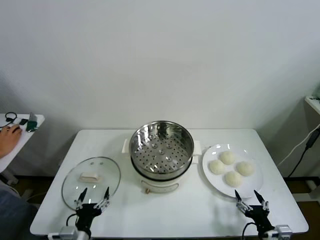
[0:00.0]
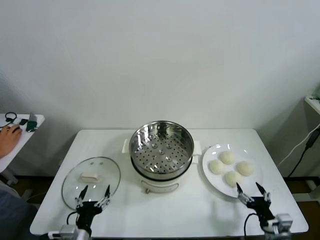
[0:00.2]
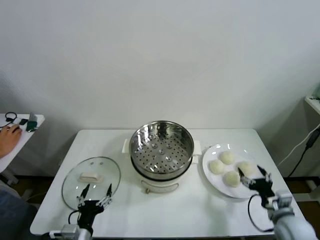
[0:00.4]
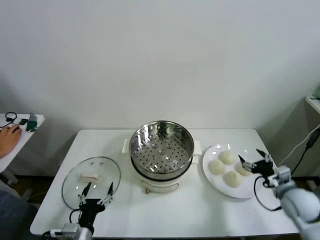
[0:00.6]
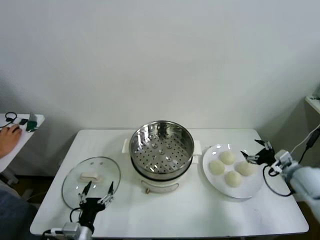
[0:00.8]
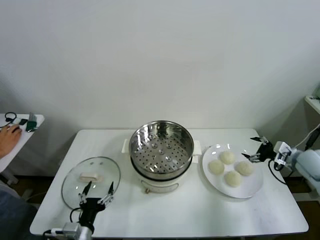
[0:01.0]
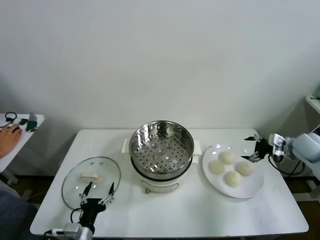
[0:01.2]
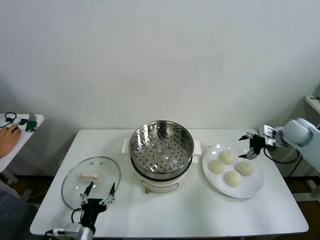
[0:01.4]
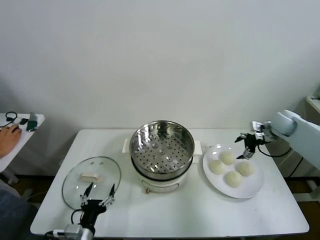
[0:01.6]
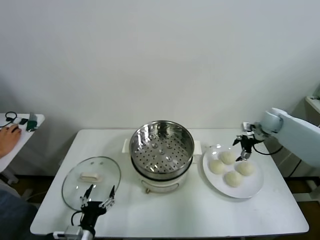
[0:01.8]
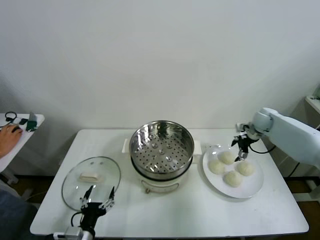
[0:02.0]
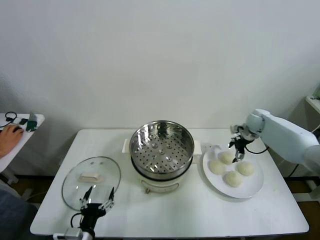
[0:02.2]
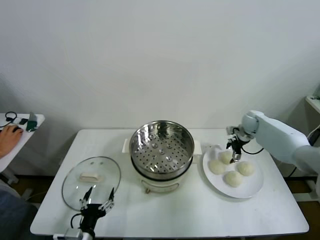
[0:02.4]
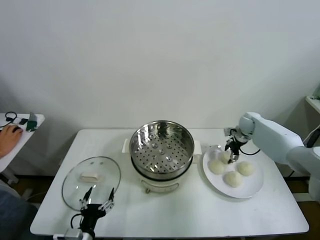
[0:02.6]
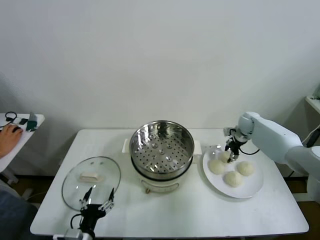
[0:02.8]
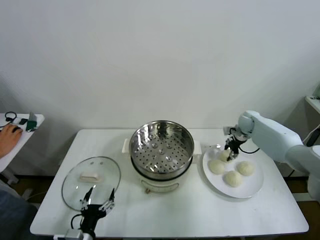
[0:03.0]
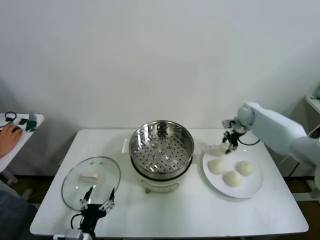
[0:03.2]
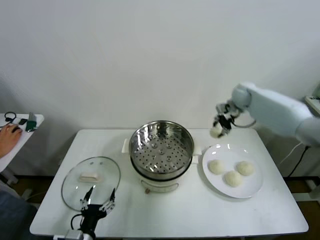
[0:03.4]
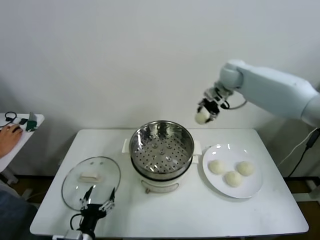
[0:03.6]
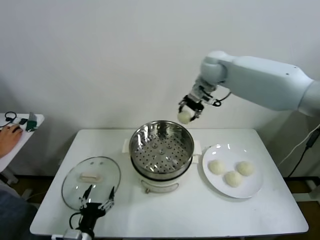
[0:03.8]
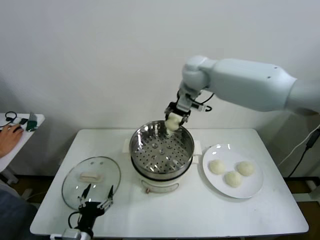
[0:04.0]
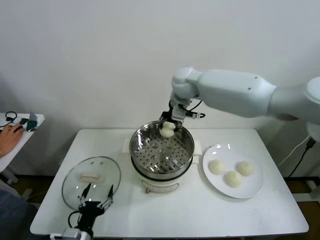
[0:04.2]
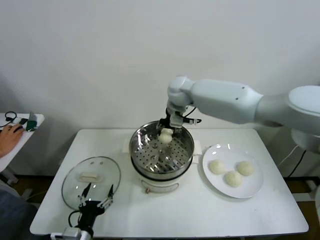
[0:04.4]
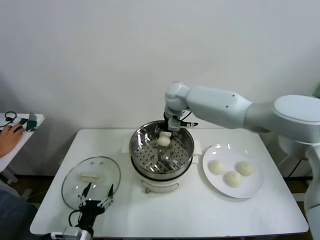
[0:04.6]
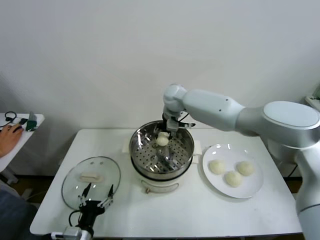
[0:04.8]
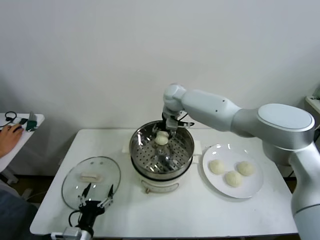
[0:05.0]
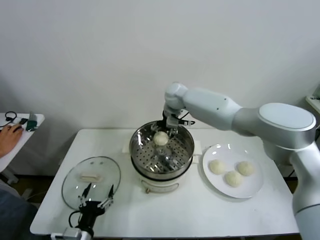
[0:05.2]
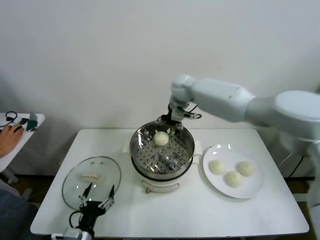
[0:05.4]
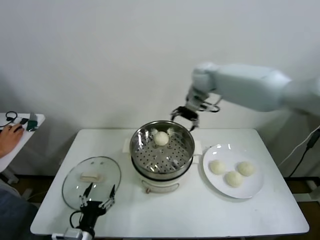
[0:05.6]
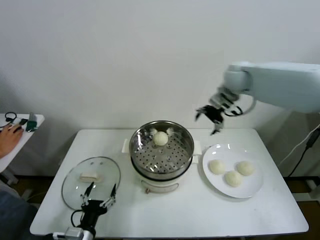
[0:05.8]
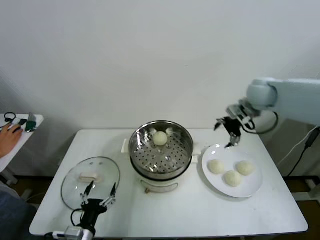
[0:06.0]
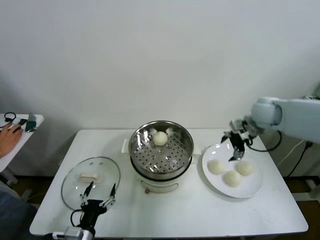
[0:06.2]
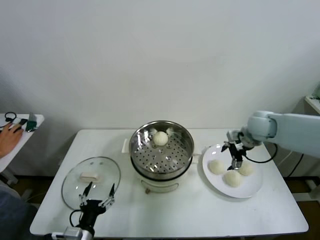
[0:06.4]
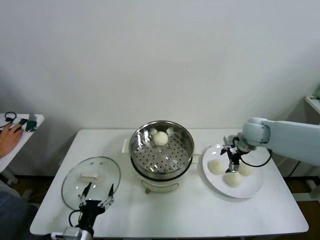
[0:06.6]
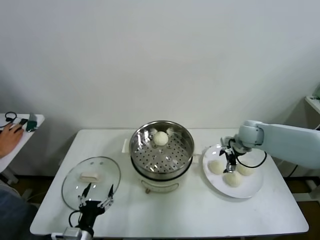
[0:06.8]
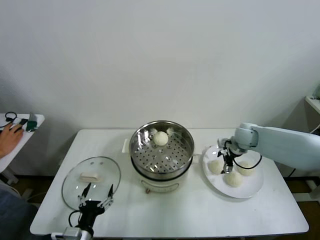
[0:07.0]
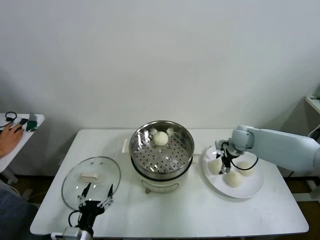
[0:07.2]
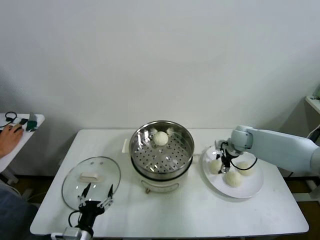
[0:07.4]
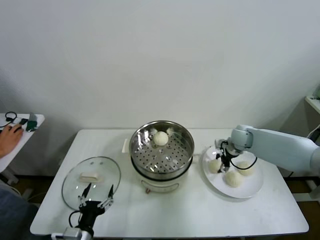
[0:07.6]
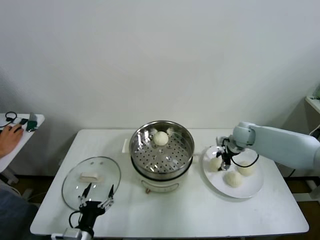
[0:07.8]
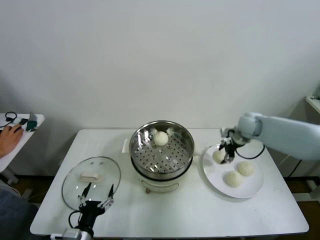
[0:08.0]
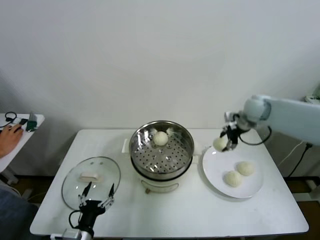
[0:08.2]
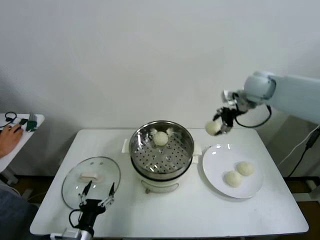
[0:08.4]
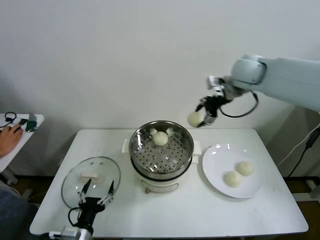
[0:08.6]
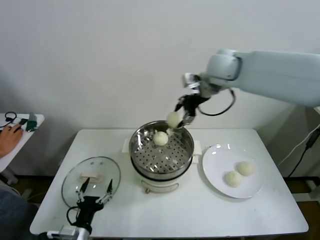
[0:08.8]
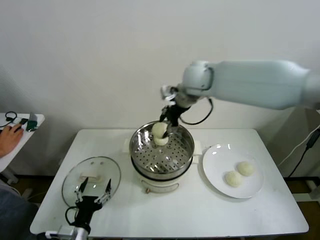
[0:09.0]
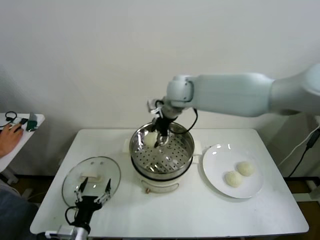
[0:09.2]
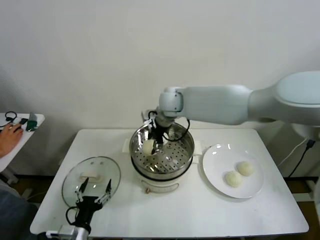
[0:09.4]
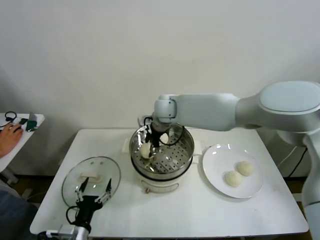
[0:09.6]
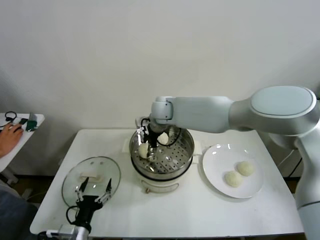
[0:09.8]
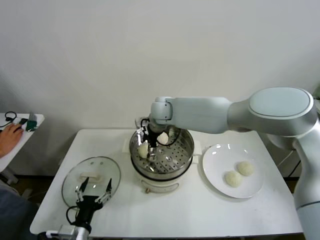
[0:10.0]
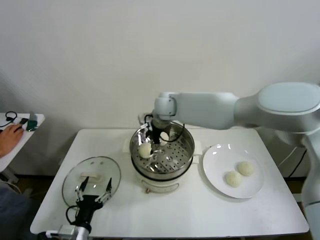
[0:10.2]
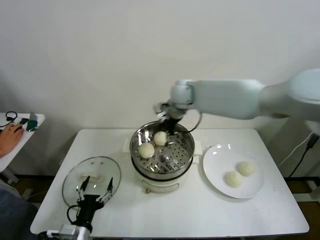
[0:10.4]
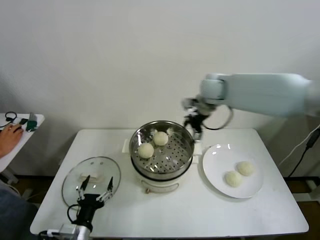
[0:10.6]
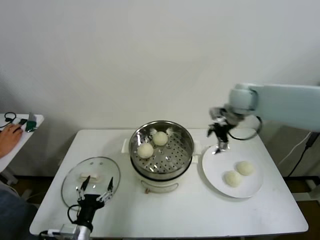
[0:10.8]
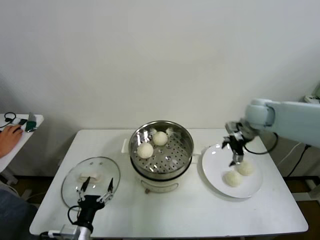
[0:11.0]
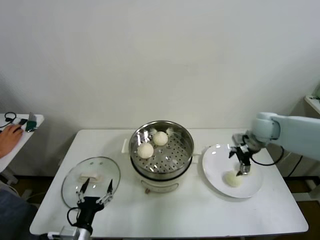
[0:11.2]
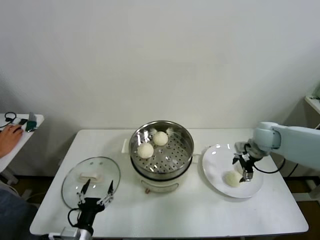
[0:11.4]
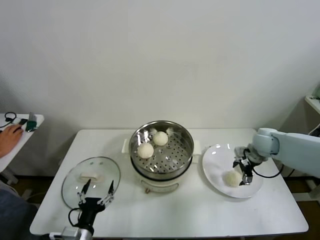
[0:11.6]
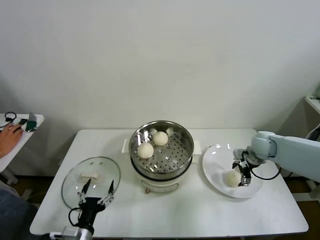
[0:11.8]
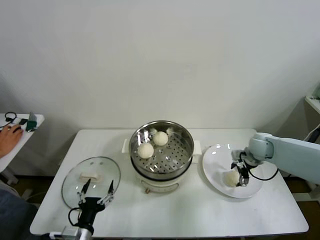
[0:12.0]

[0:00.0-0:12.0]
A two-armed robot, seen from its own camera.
Step, 0.0 to 2.6 s: Grasp the baozi in the plate with right gripper.
Step, 3.0 to 5.0 s: Place the baozi on the steamer with right gripper.
Step, 5.2 to 7.6 s: Grasp the baozi in the plate with right gripper.
Step, 7.8 to 10.0 s: Place the baozi on the steamer with right gripper.
1.6 to 3.0 s: The right gripper heads forward, to the left and downward, covering approximately 10 cm, and closes.
3.0 to 4.4 s: The right gripper shifts approximately 35 cm to the left and upward.
4.4 to 6.0 s: The right gripper moves to the right, about 25 cm, and opens its fingers.
6.0 to 7.6 s: The right gripper travels downward by approximately 20 cm, and closes its fingers.
7.6 to 9.0 s: The right gripper shifts approximately 35 cm upward and to the left.
9.0 to 10.4 s: The right gripper shifts approximately 5 cm downward, and opens.
10.4 to 12.0 s: The right gripper goes roughly 35 cm to the right and downward.

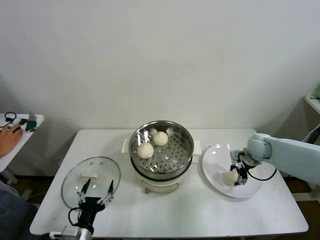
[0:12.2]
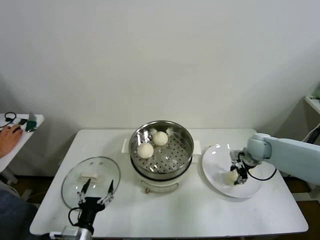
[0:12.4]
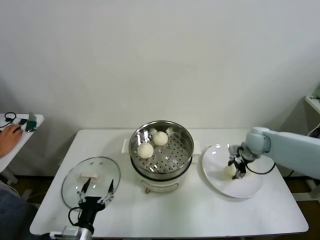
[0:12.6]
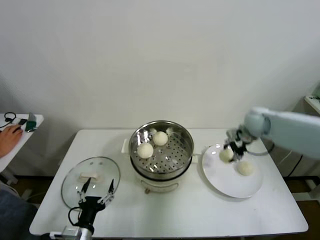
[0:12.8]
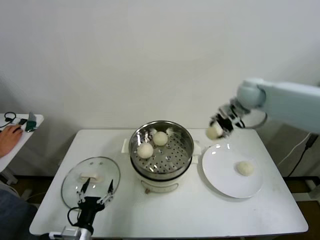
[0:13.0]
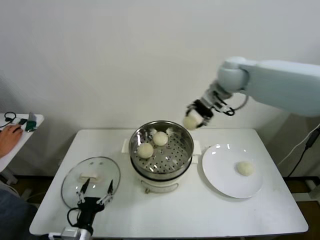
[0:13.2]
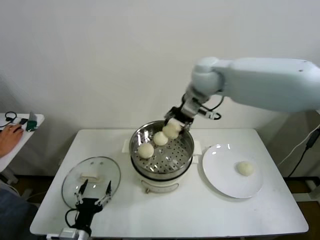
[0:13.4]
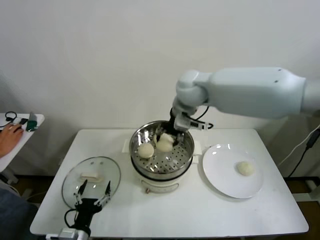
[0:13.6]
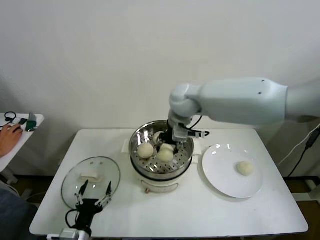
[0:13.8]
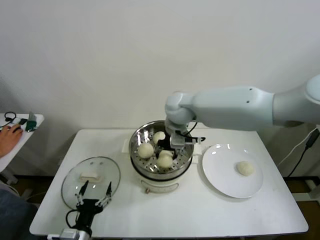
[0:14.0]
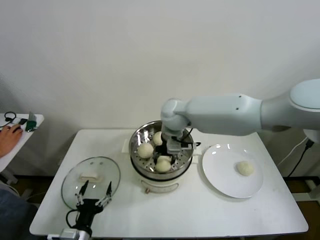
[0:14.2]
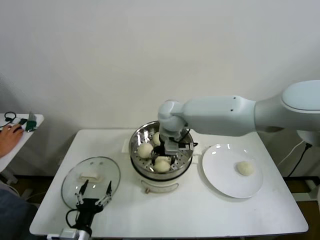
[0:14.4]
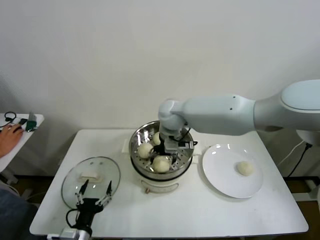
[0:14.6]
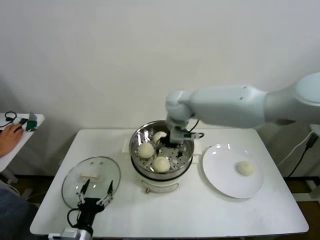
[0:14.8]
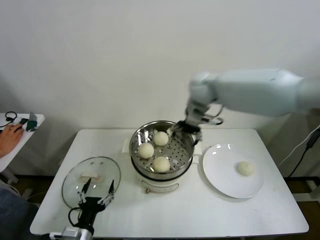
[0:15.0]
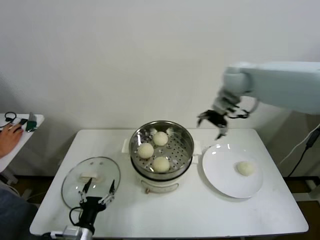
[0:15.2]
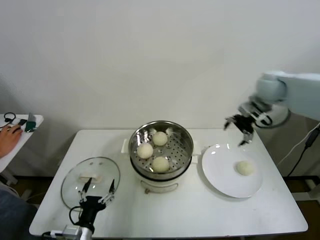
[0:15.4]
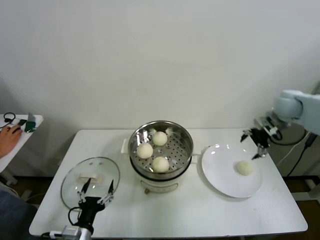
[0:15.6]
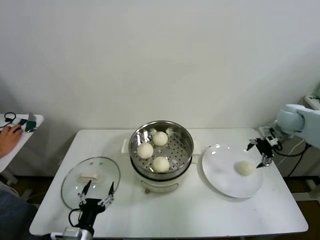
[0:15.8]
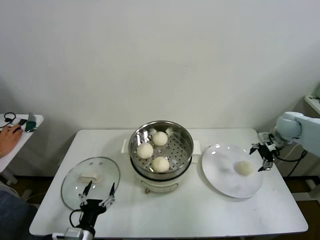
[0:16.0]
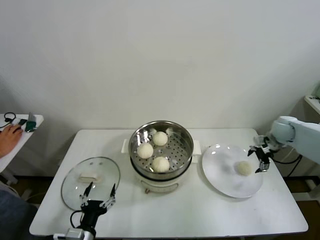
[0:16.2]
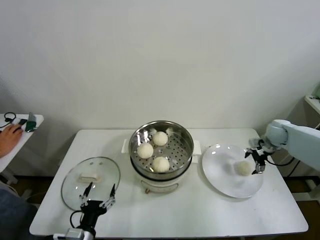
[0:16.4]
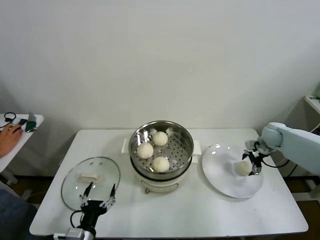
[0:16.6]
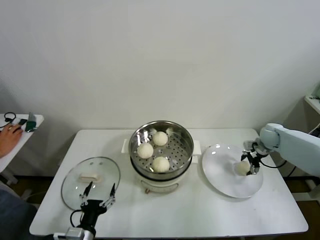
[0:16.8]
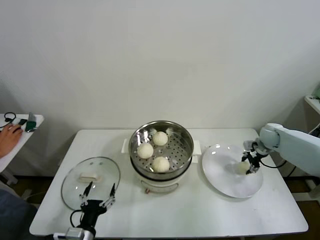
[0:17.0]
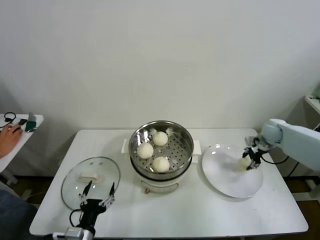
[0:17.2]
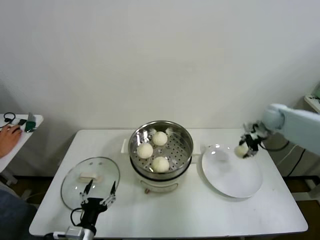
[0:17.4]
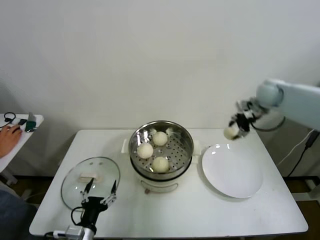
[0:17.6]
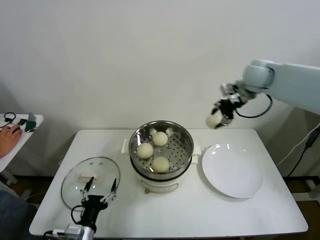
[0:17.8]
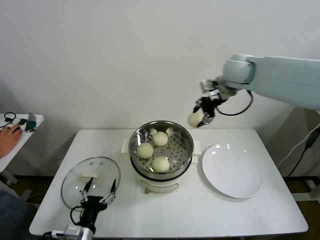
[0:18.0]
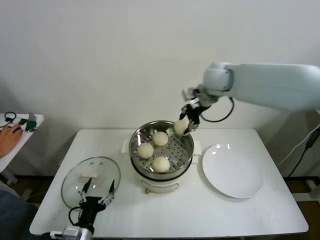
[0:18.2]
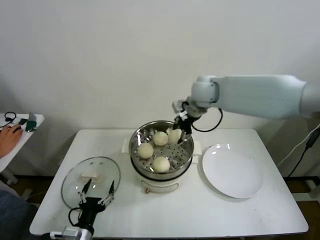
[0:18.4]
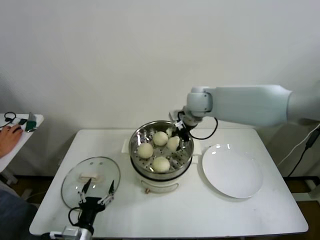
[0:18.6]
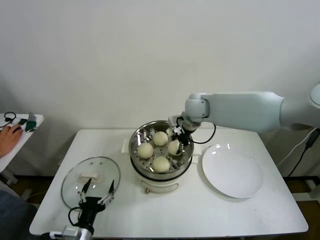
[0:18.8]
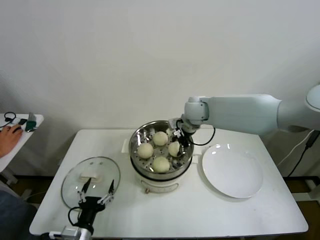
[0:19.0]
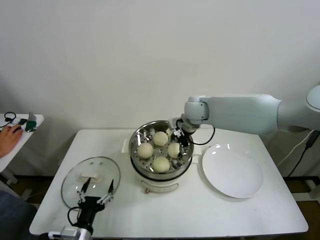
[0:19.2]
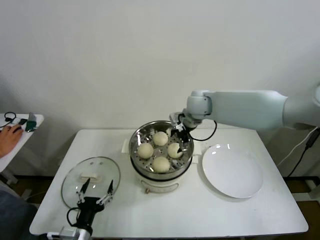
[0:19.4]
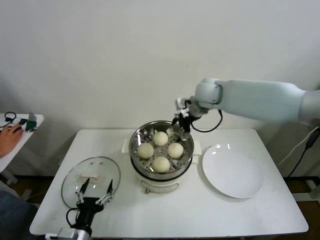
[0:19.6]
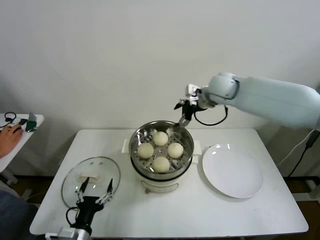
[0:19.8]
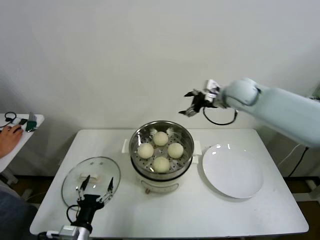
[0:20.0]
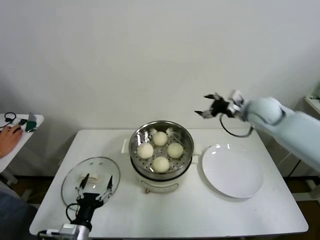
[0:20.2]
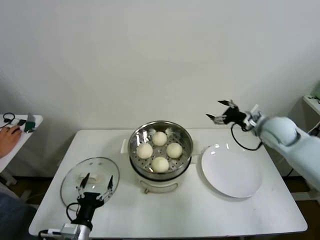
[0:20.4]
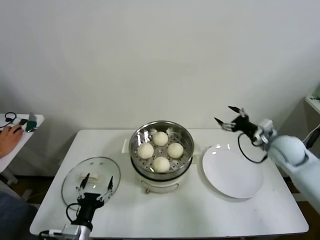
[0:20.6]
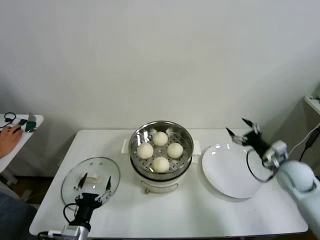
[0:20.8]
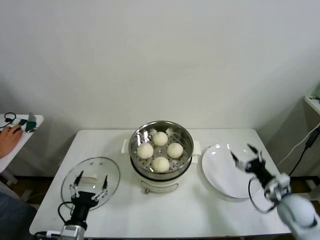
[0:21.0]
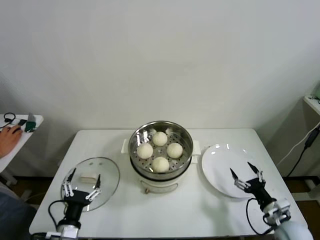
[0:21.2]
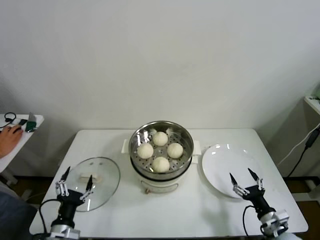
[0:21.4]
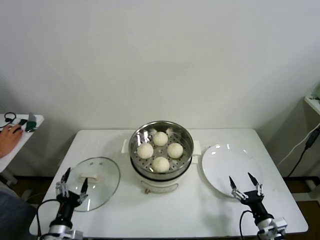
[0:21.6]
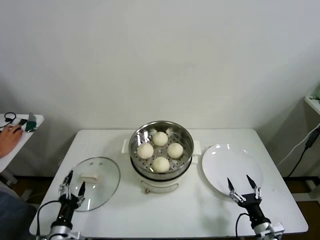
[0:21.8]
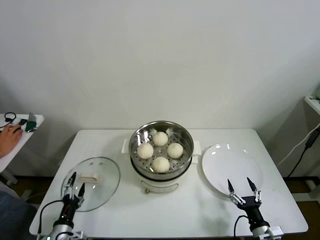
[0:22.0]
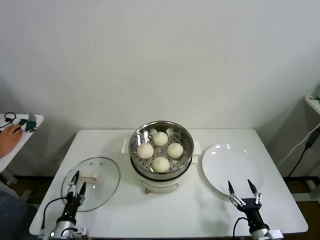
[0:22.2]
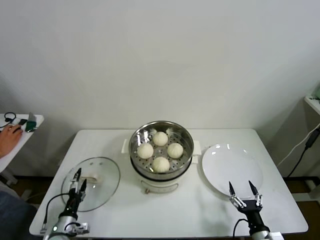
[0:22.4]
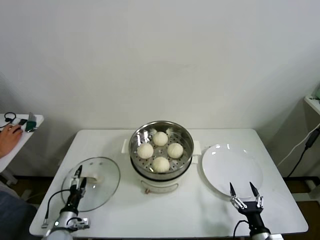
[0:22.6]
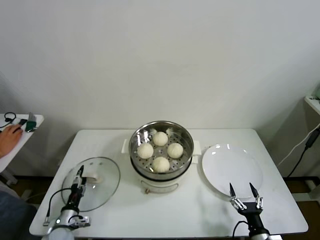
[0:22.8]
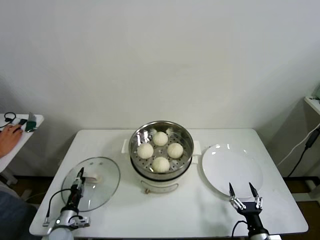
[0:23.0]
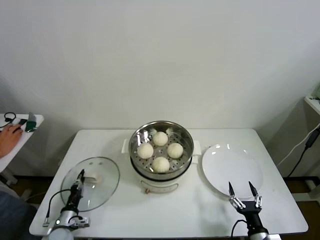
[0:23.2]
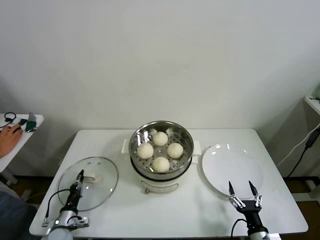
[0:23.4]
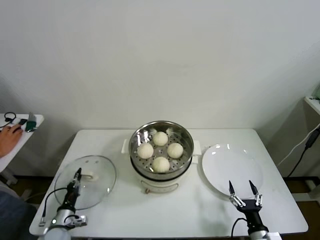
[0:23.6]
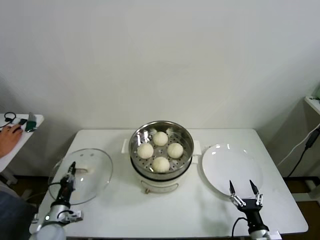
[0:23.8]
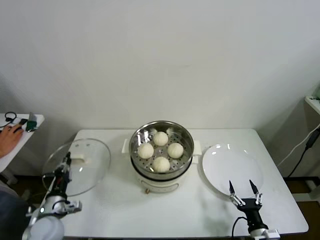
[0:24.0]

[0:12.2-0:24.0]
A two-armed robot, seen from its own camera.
Step, 12.6 to 14.4 s: Place the baozi on the steamer with right gripper.
Step, 14.6 to 17.0 s: Grasp the baozi in the plate with right gripper.
Step, 17.2 to 19.0 s: Place the baozi on the steamer with right gripper.
Step, 19.4 to 23.2 s: Grasp the pot lid with left gripper.
12.2 to 13.6 s: The right gripper travels to the left and upward by approximately 40 cm.
13.6 to 15.2 s: The right gripper travels to the right by approximately 15 cm, and opens its fingers.
15.2 to 16.6 s: The right gripper moves downward and to the right, some 35 cm.
16.6 to 18.2 s: The right gripper travels to the left and upward by about 35 cm, and closes up.
18.2 to 19.6 s: The right gripper goes about 5 cm downward, and opens up.
19.6 to 21.0 s: The right gripper heads to the right, downward and backward, covering about 50 cm.
21.0 to 22.6 s: The left gripper is displaced downward, to the left and forward by some 15 cm; the right gripper is displaced backward, downward and to the left by about 20 cm.
22.6 to 24.0 s: The left gripper moves upward, roughly 10 cm, and closes up.
